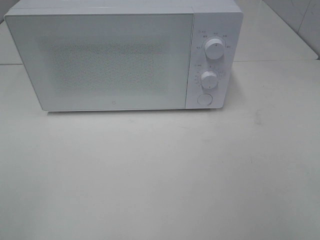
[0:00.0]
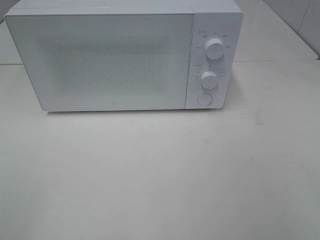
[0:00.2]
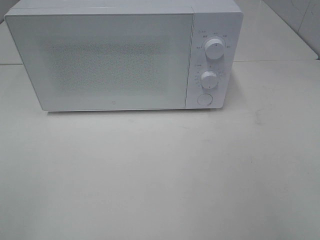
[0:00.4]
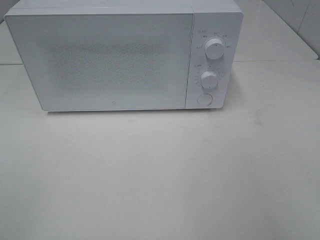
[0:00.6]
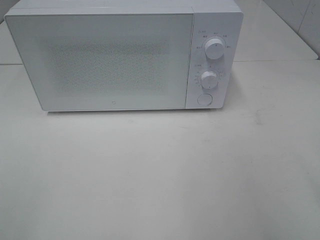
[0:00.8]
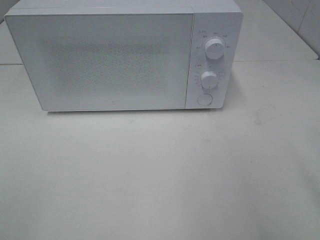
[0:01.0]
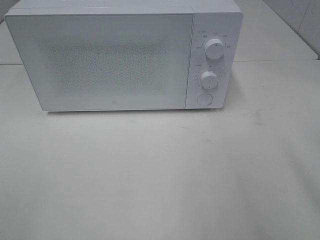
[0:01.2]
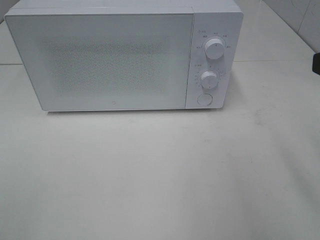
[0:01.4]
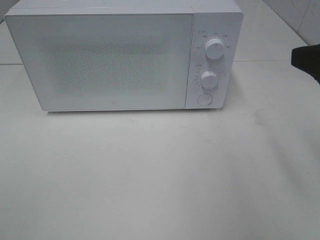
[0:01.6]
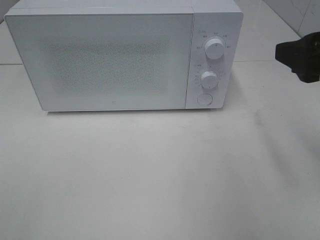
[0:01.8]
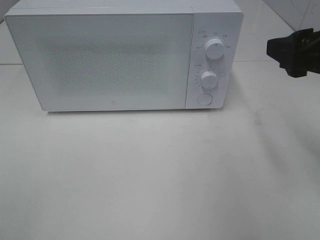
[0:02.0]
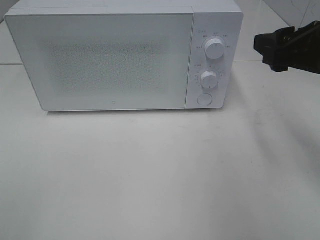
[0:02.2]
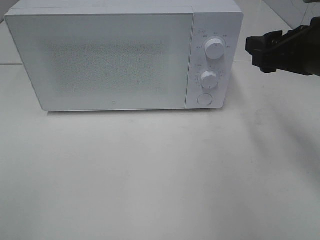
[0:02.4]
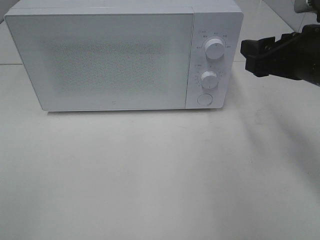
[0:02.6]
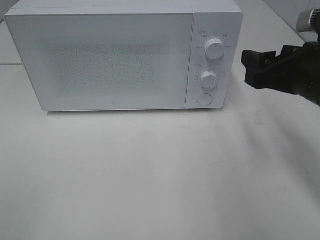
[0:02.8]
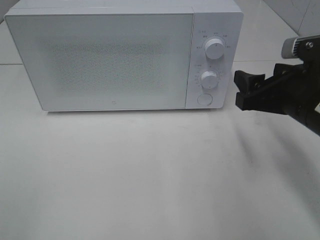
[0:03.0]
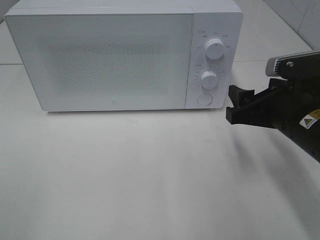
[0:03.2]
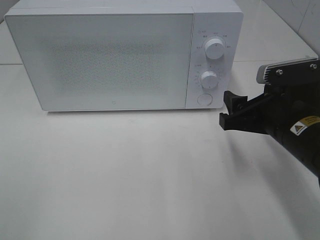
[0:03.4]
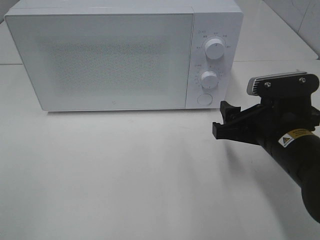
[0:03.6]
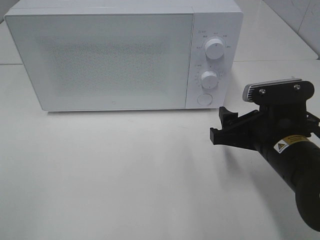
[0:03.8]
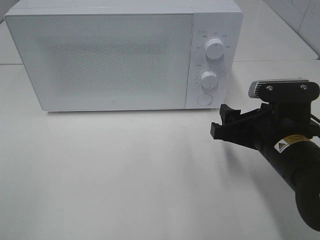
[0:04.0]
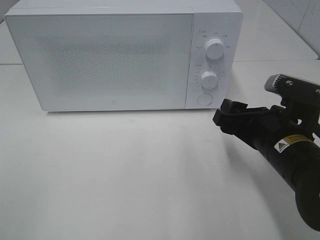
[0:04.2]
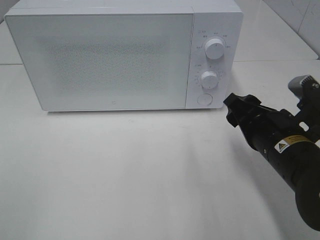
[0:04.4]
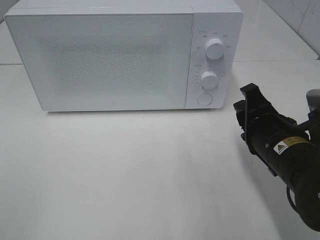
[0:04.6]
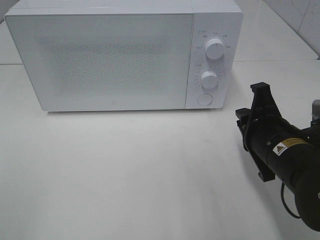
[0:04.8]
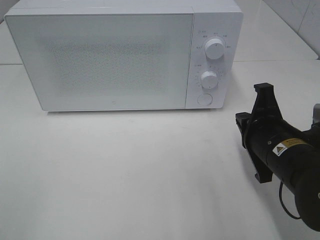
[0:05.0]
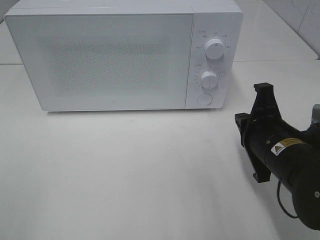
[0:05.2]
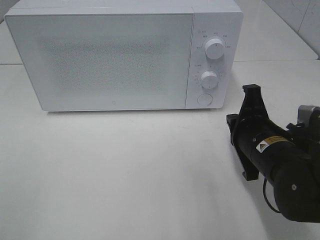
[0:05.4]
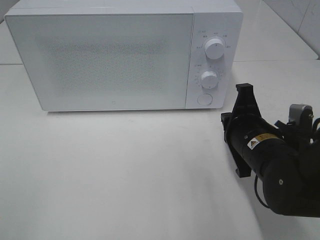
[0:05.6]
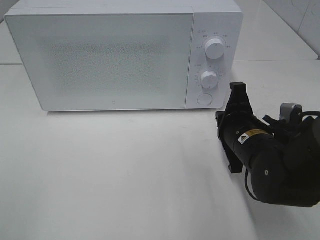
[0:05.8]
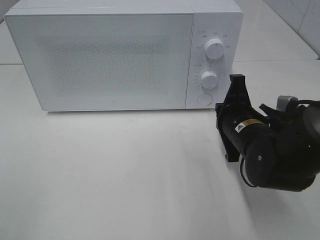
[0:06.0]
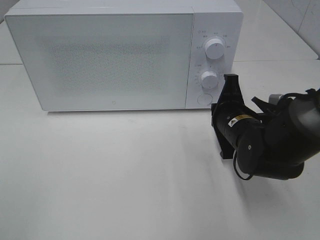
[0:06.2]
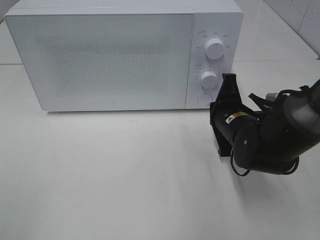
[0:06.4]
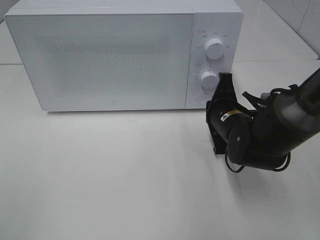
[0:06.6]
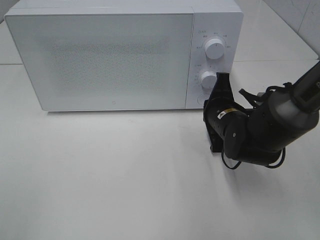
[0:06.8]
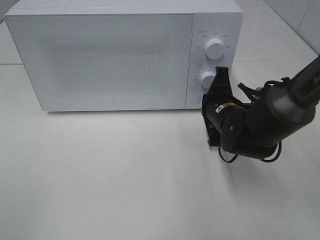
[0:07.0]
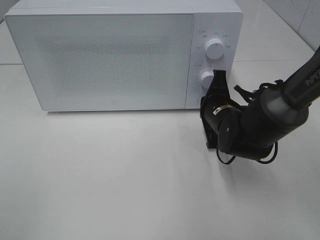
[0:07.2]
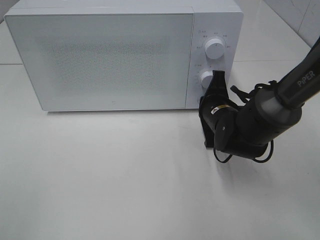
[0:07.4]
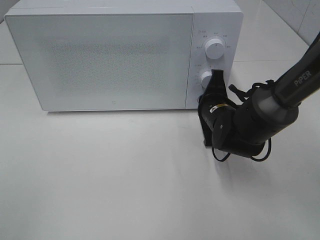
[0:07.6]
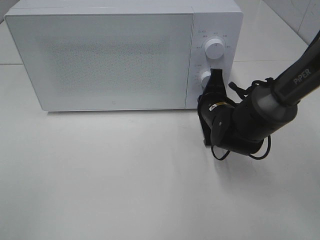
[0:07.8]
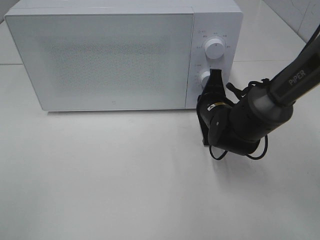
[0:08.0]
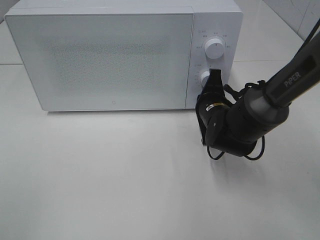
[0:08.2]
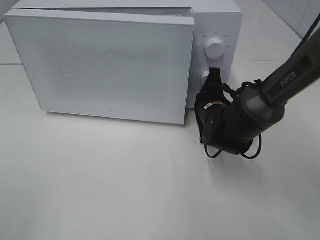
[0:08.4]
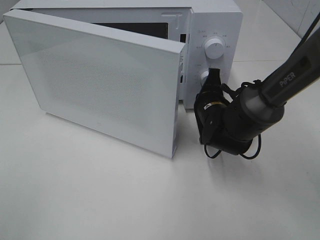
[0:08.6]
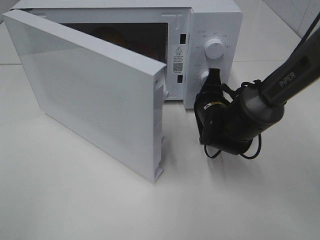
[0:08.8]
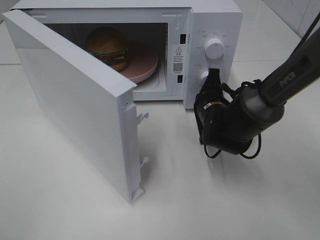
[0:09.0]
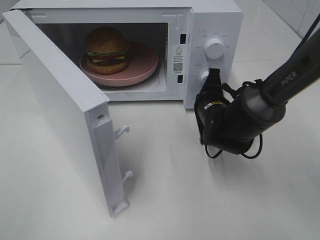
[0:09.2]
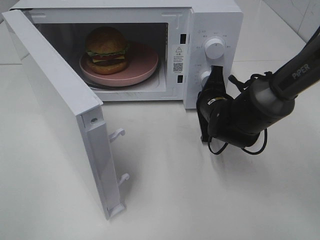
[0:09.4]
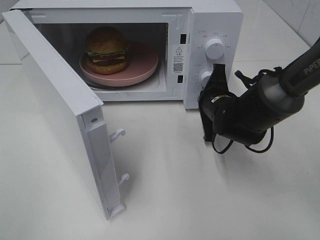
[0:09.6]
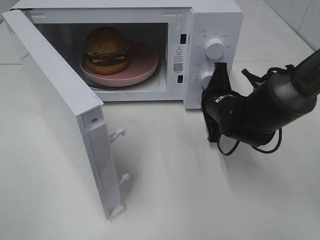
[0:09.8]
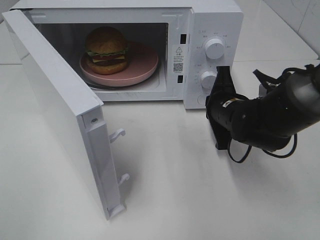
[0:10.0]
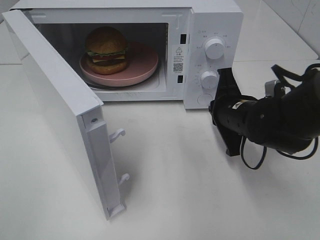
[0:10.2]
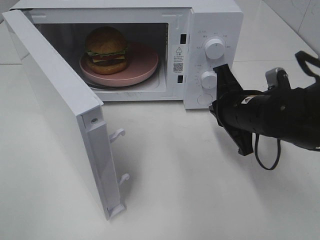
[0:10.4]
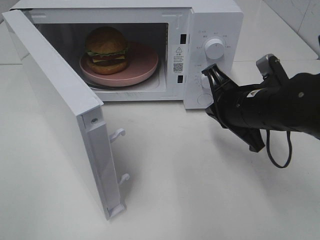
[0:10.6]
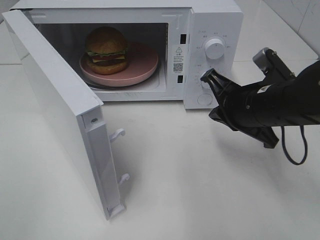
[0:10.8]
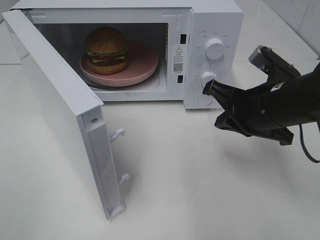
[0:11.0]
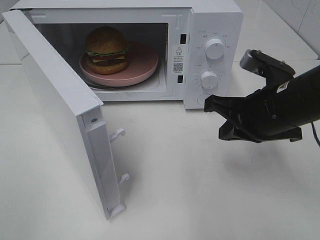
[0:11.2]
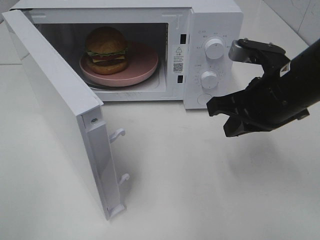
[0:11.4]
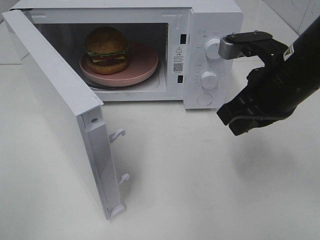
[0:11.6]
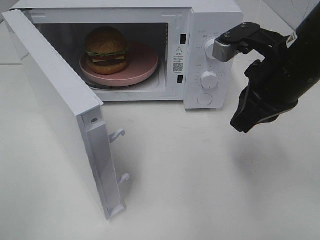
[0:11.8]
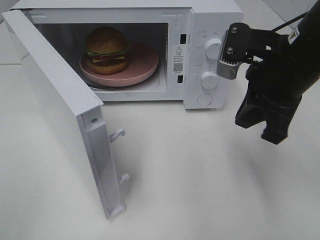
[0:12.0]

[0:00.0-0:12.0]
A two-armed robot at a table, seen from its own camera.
Task of the whole recording: Heat the burger.
Step, 0:00.0 to 0:09.8: Right hand: press the switch.
0:00.0 to 0:01.6: The right gripper goes about 15 cm forward.
0:01.6 to 0:03.0: The right gripper moves downward and forward, about 10 cm.
0:03.0 to 0:04.4: The right gripper moves about 5 cm.
0:04.4 to 0:06.0: The right gripper travels forward by roughly 5 cm, and closes up.
0:06.0 to 0:07.6: The right gripper moves forward, approximately 5 cm.
0:09.0 to 0:10.4: The right gripper heads backward and upward, covering about 10 cm.
0:10.4 to 0:12.0: The right gripper heads upward, covering approximately 10 cm.

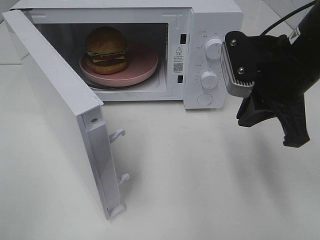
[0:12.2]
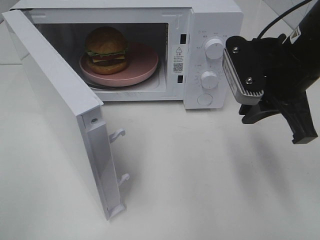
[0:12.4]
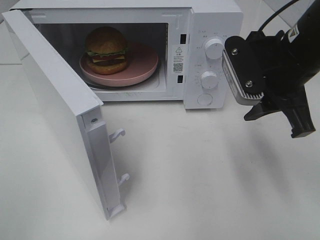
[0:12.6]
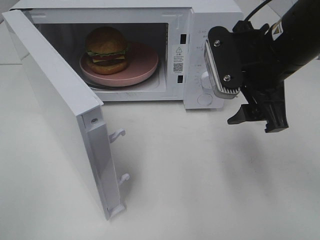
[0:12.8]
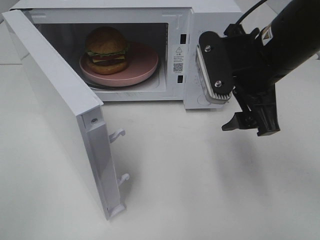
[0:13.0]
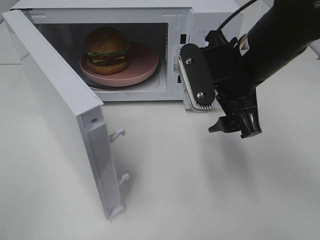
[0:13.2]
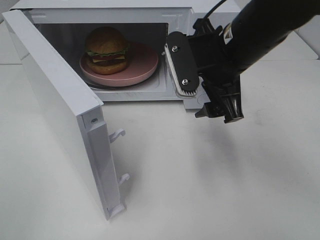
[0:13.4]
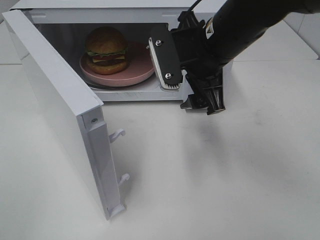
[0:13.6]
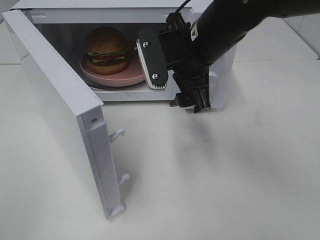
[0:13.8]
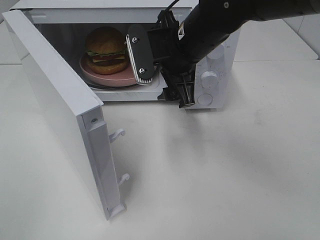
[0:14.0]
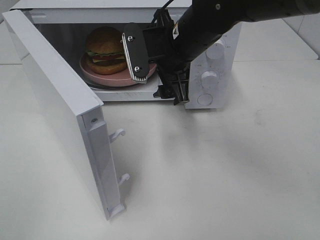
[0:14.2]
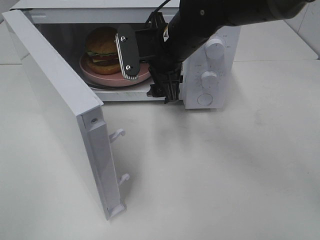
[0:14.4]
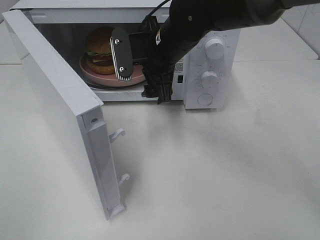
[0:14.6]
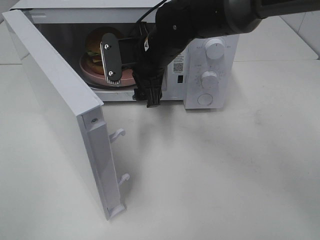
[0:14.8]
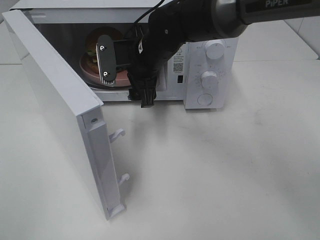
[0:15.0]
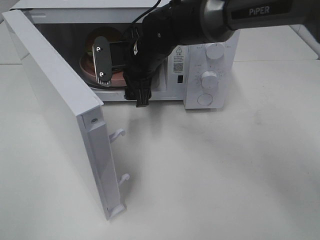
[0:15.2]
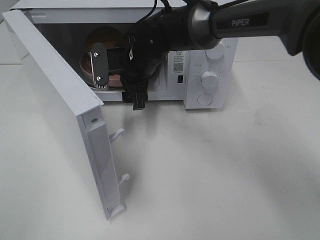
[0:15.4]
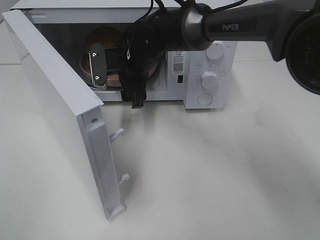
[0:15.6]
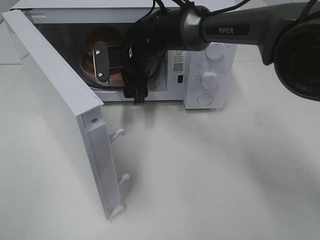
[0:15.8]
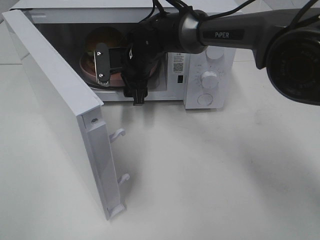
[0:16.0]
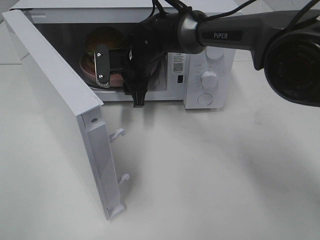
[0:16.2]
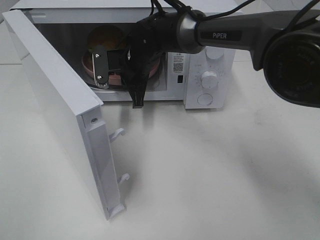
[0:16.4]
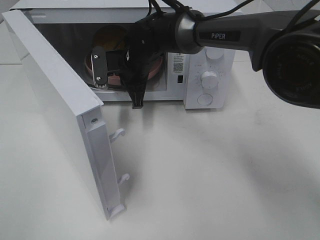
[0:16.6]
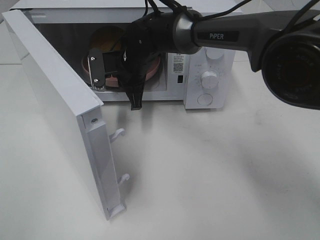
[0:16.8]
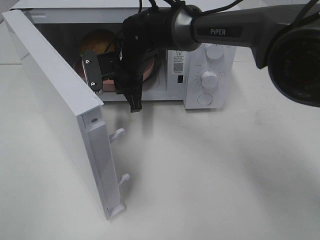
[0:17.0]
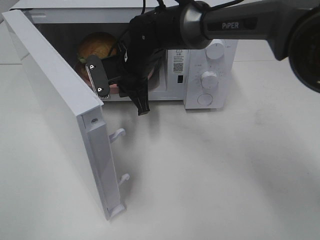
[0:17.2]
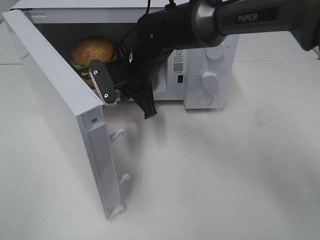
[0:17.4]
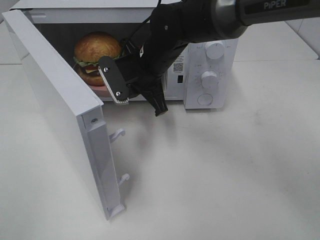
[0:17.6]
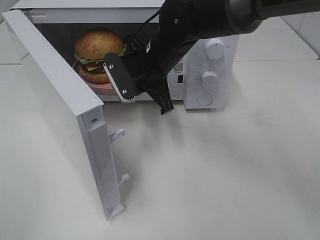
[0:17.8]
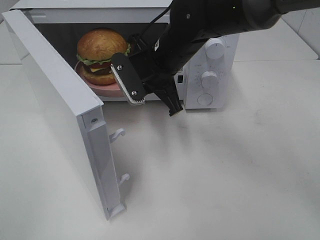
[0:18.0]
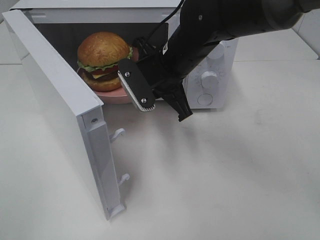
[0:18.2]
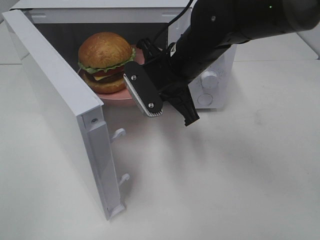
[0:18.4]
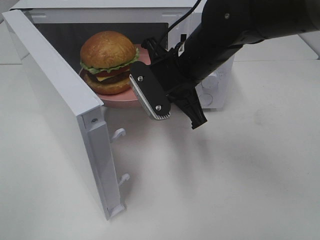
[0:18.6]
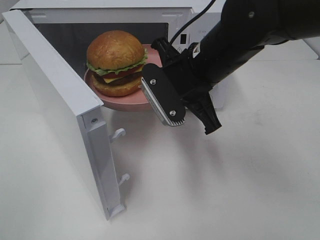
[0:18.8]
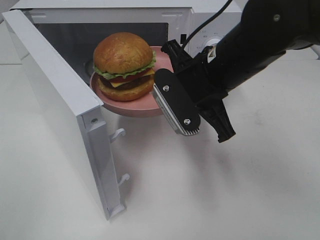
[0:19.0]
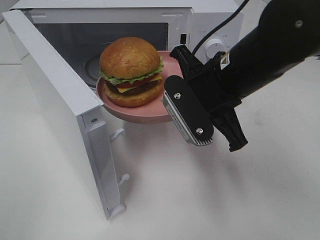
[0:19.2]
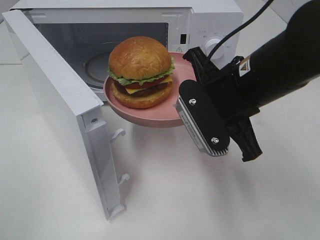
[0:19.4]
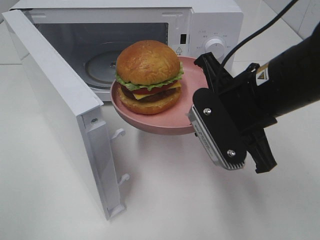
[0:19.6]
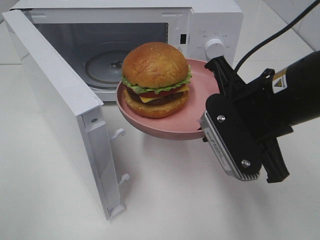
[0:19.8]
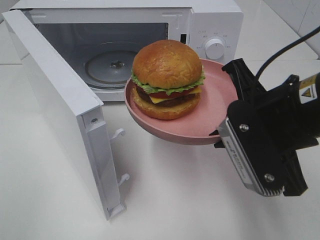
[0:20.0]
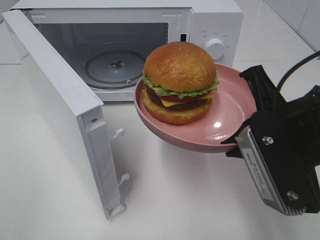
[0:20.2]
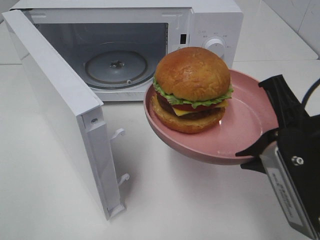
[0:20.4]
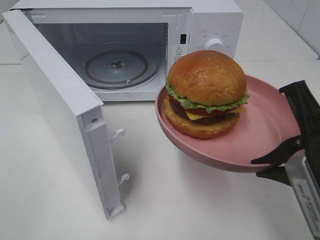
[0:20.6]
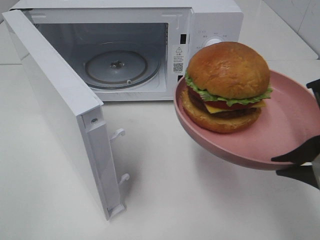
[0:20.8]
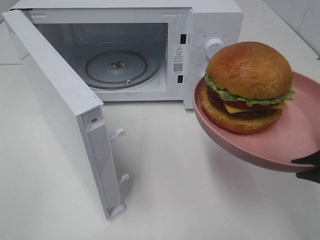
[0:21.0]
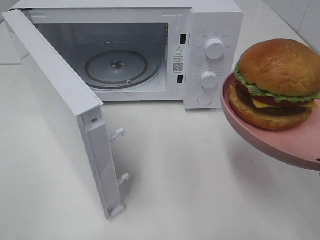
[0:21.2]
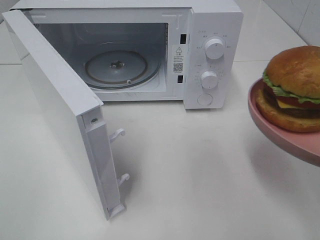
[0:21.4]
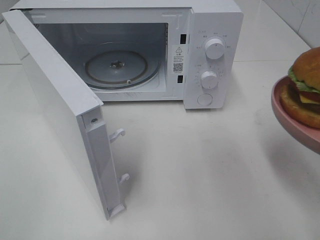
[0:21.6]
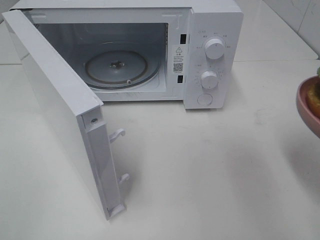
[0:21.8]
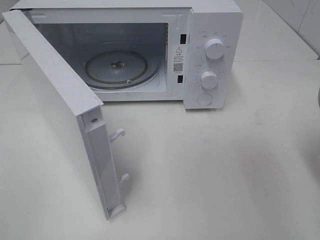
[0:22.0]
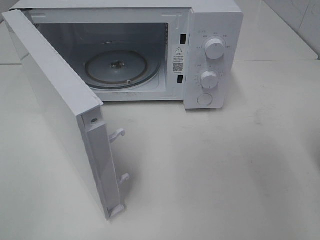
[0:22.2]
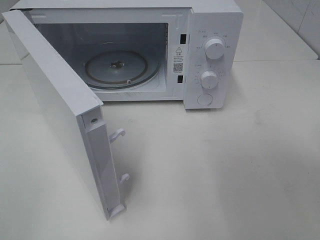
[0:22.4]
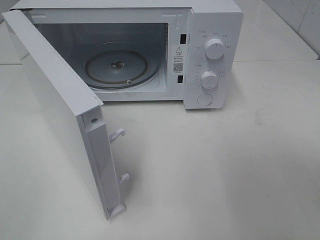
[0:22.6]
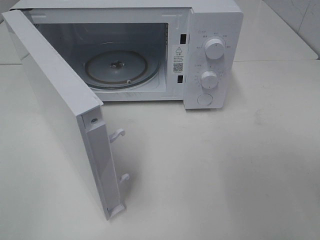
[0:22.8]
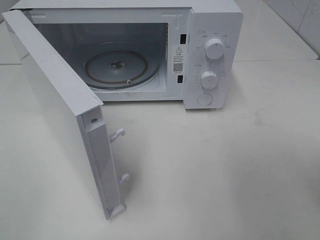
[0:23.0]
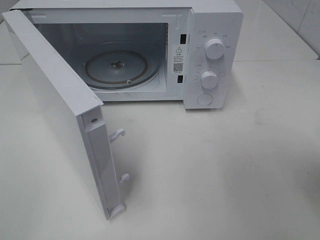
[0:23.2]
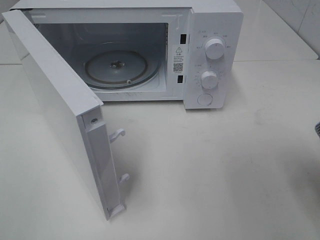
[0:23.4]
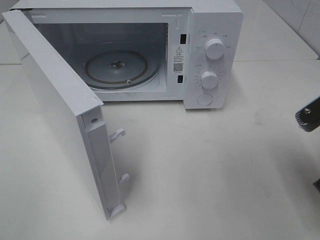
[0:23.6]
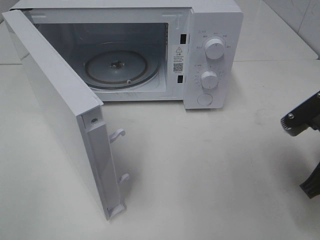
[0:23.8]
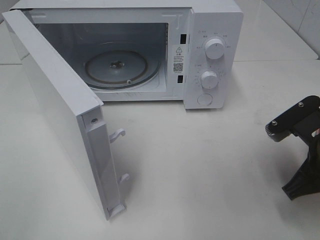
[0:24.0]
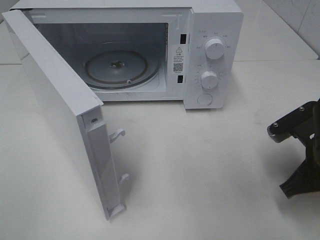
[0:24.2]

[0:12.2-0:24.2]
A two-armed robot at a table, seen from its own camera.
Task of the whole recording: Heat the burger.
Step, 0:12.2 to 0:16.4: Right hand: grab the plate with the hamburger.
0:12.2 to 0:13.8: The right gripper heads to the left and forward, covering approximately 10 cm, and opens its fingers.
0:13.8 to 0:15.2: The right gripper travels forward, to the left and downward by about 15 cm.
0:15.2 to 0:16.6: The right gripper closes.
0:16.6 to 0:18.2: The right gripper is displaced backward, to the right and upward by approximately 15 cm.
0:18.2 to 0:19.8: The right gripper shifts approximately 15 cm backward and to the right.
0:19.8 to 0:21.2: The right gripper travels backward and to the right by some 15 cm.
0:21.2 to 0:22.6: The right gripper moves approximately 5 cm.
0:22.6 to 0:24.2: The right gripper travels forward, downward and to the left by approximately 15 cm.
